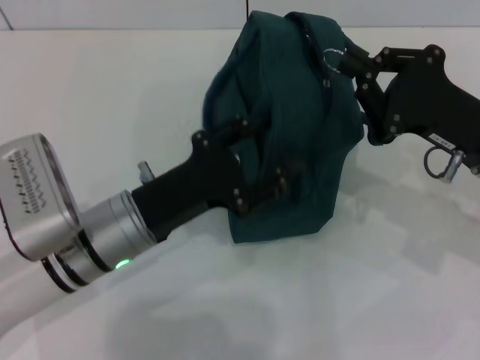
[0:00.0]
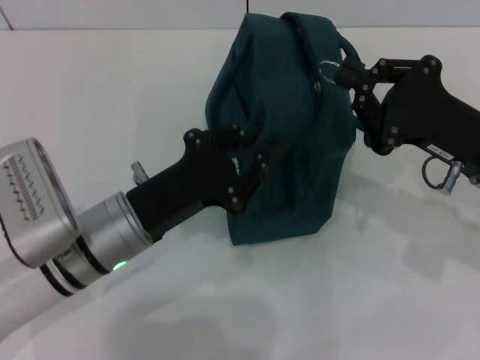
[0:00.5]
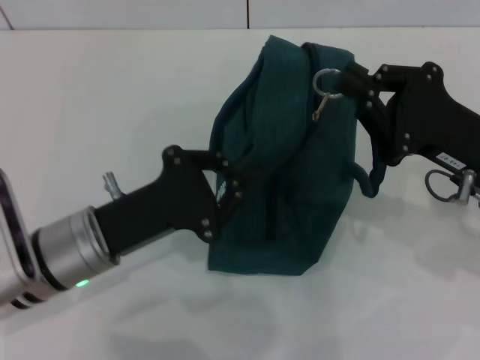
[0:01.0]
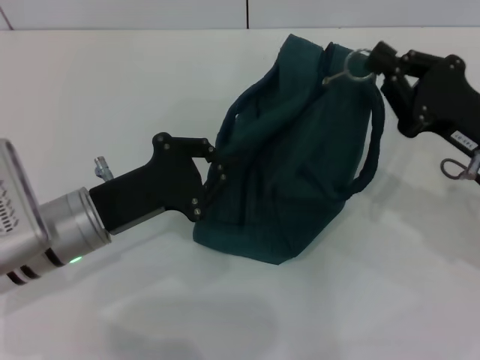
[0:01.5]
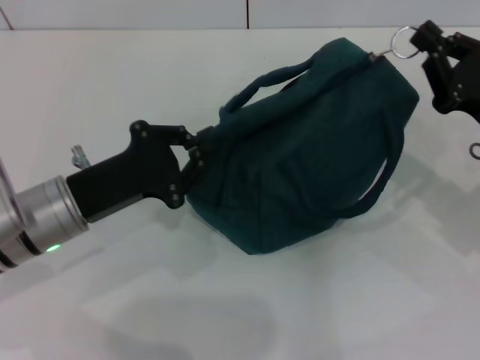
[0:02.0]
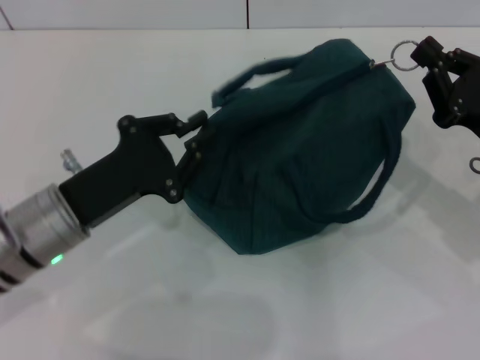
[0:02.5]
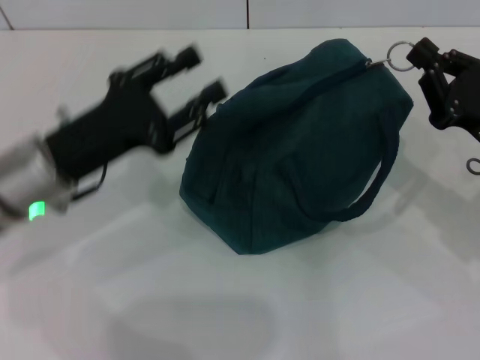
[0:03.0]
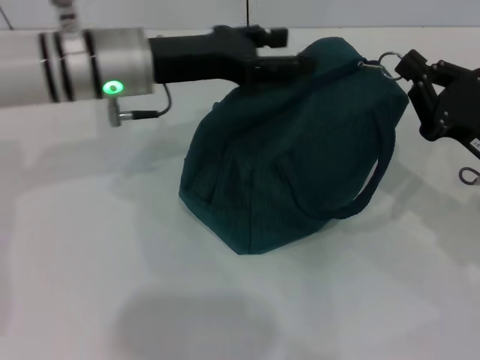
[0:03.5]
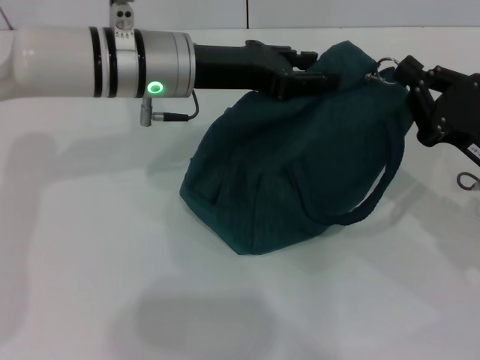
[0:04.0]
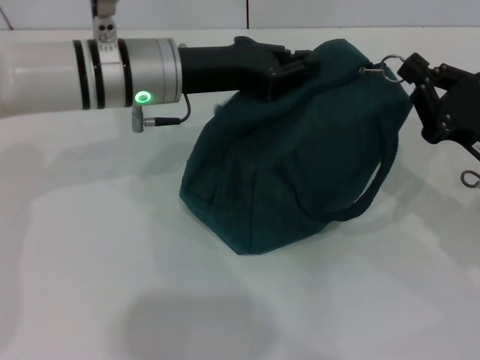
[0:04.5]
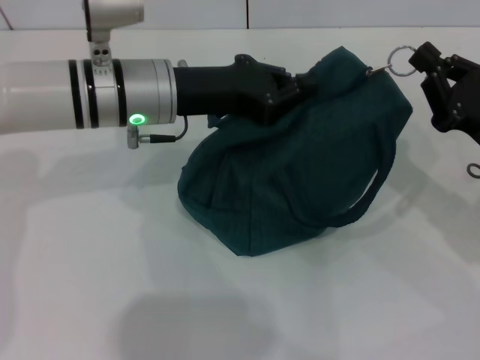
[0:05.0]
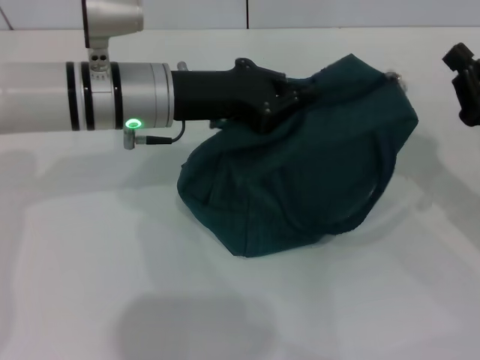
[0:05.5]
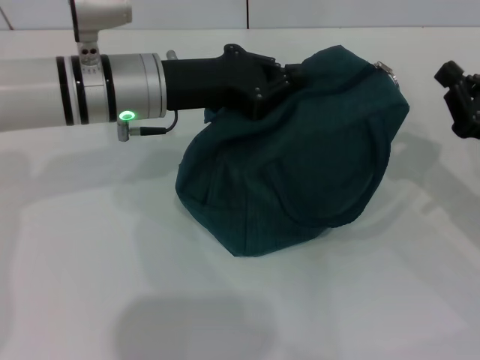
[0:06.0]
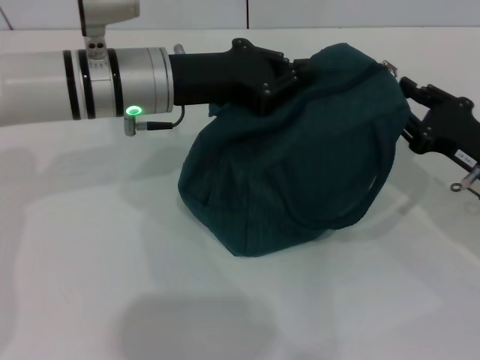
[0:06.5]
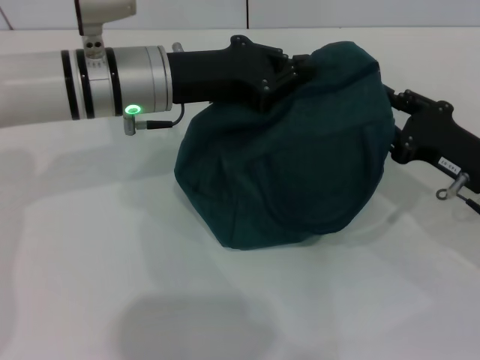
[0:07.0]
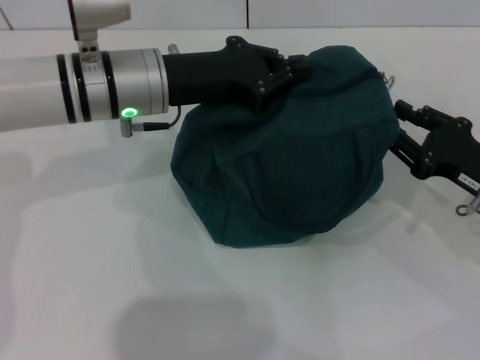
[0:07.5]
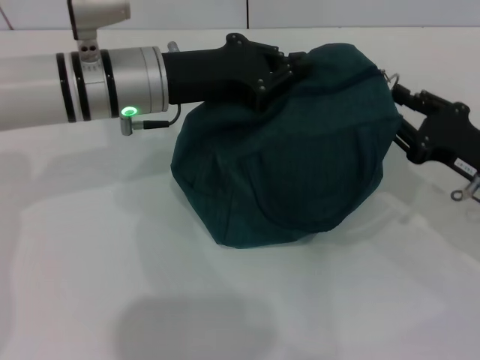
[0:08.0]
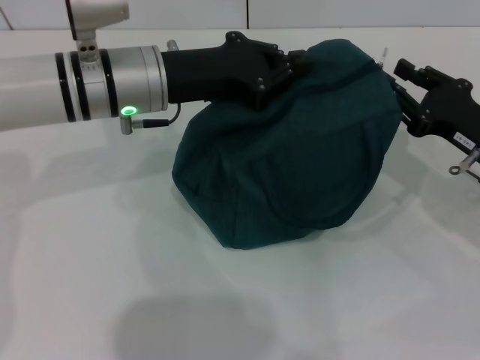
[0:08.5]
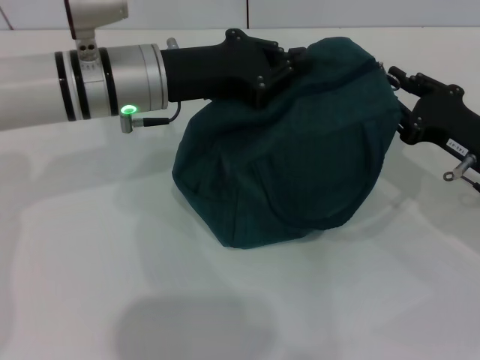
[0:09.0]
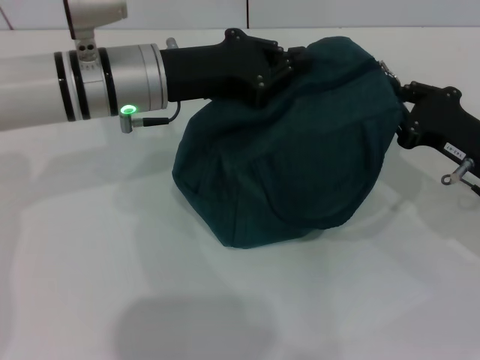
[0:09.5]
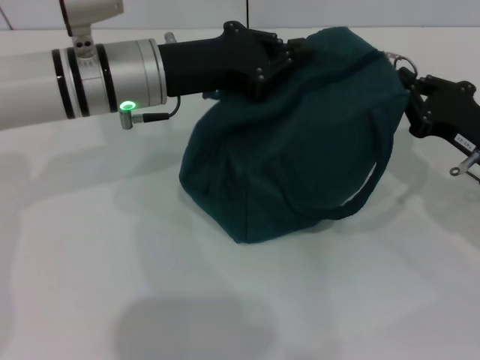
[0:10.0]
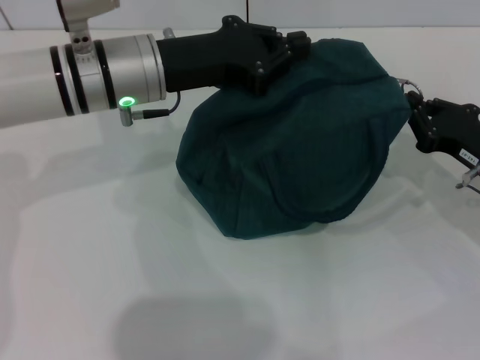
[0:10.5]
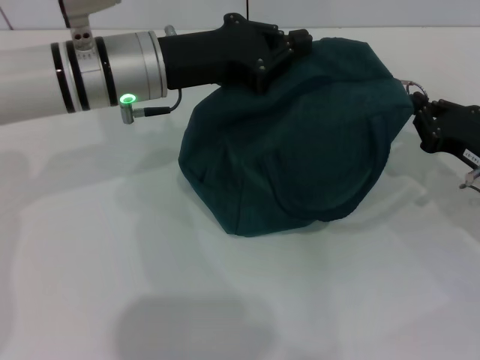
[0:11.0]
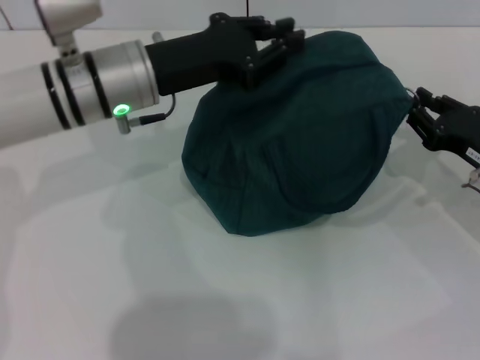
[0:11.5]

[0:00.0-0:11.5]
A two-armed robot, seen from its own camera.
0:00.0 to 0:02.0: The left gripper moves to the left, about 5 cm, and closes its fingers.
0:02.0 to 0:04.0: The left gripper heads forward, to the right and upward, covering approximately 20 cm, and opens.
0:04.0 to 0:06.0: The left gripper closes.
0:06.0 to 0:07.5: The right gripper opens its fingers.
0:07.5 to 0:11.5: The grippers make only small movements.

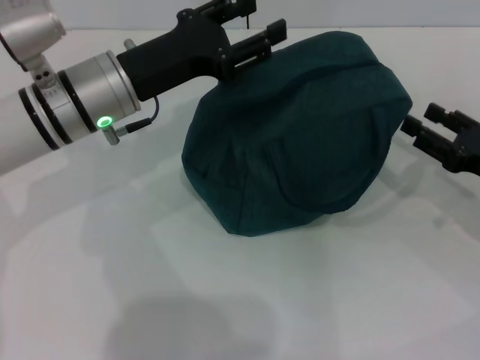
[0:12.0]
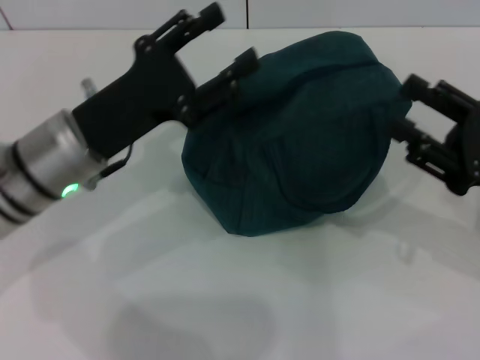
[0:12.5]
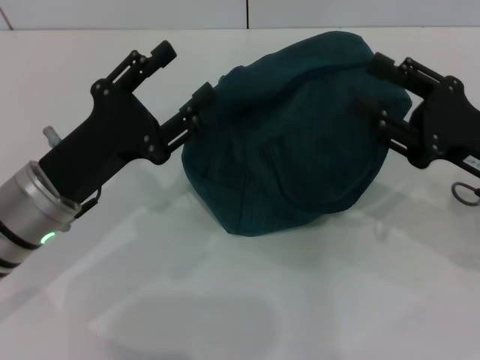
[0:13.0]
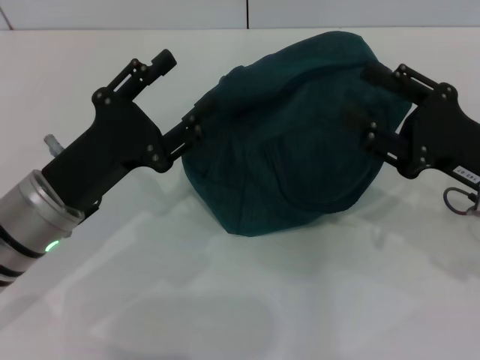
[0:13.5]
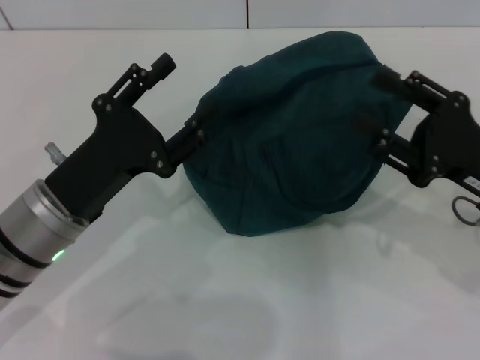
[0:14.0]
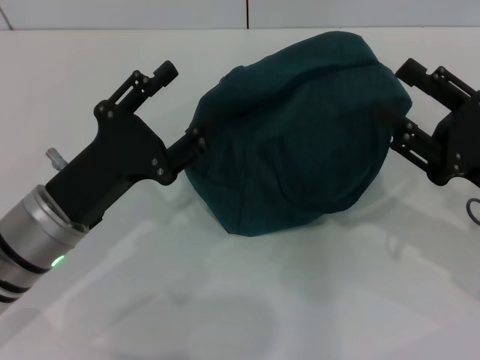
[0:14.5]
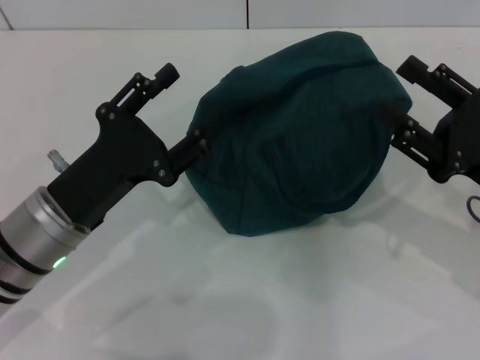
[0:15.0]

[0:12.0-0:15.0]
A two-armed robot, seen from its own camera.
0:12.0 to 0:13.5: The left gripper goes about 10 cm backward and downward. Meanwhile the right gripper moves to the left, some 5 cm.
0:13.5 to 0:15.0: The grippers move only a little.
